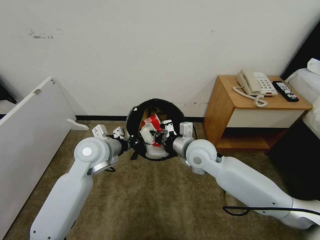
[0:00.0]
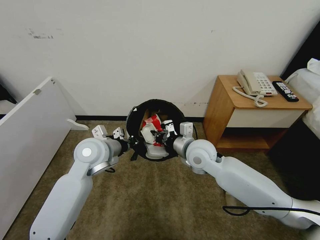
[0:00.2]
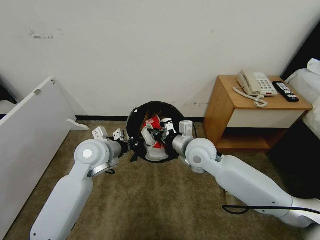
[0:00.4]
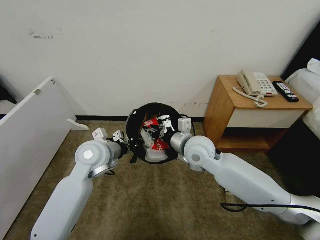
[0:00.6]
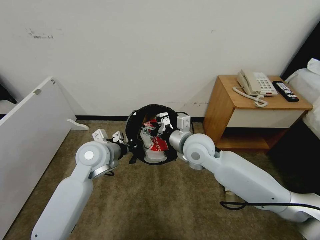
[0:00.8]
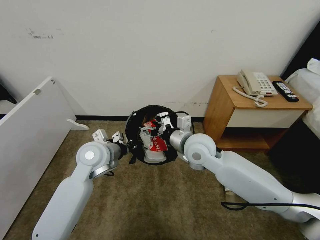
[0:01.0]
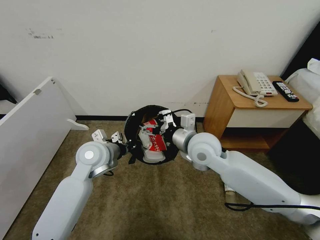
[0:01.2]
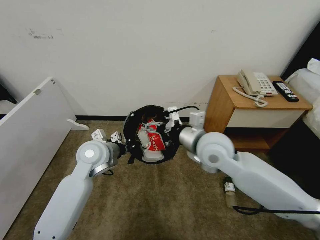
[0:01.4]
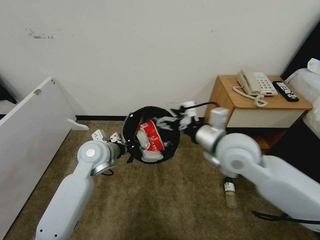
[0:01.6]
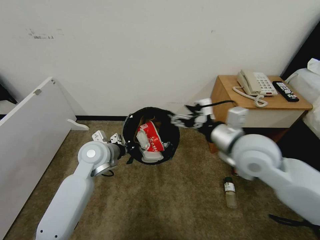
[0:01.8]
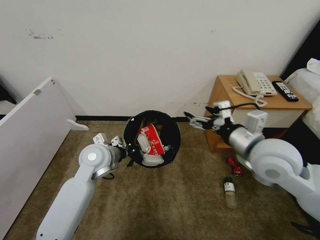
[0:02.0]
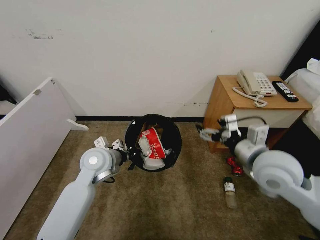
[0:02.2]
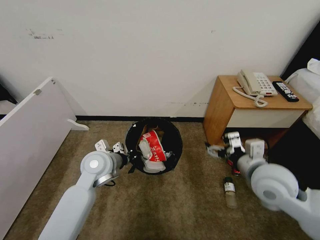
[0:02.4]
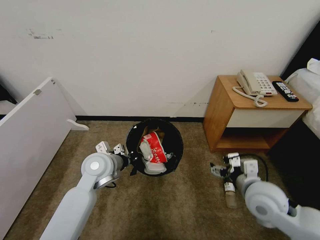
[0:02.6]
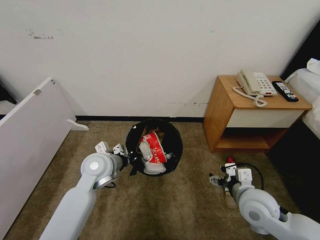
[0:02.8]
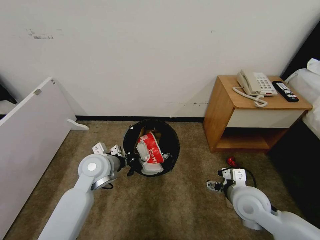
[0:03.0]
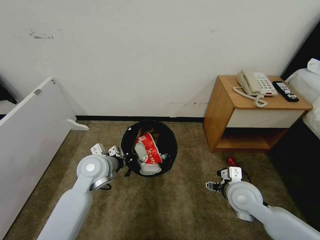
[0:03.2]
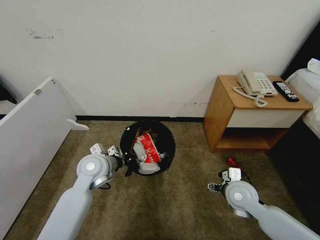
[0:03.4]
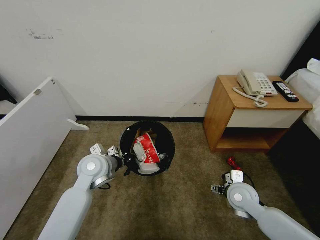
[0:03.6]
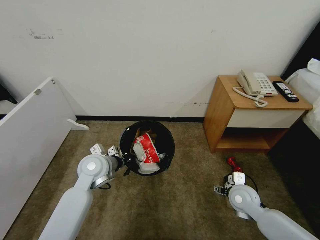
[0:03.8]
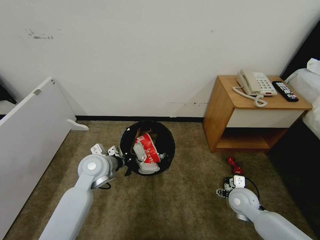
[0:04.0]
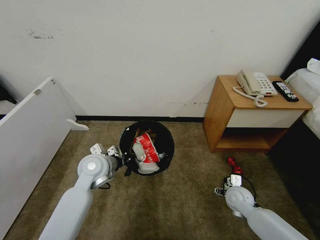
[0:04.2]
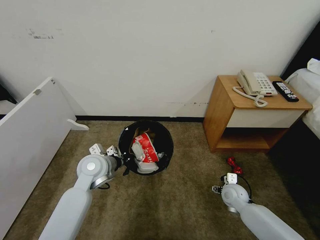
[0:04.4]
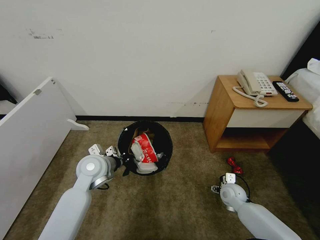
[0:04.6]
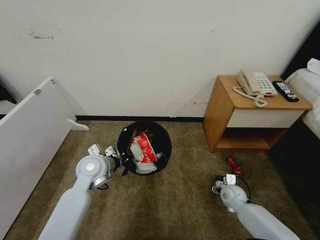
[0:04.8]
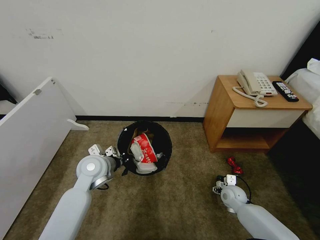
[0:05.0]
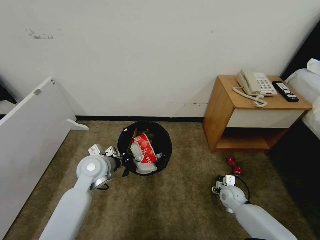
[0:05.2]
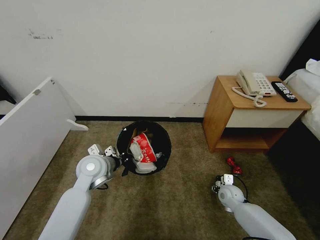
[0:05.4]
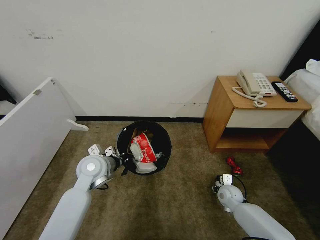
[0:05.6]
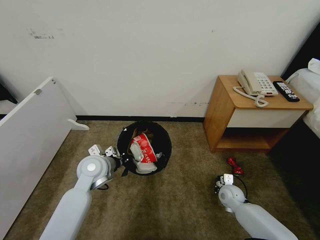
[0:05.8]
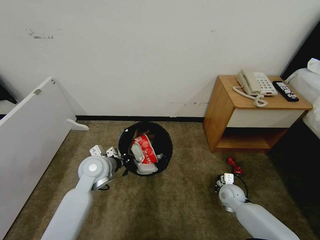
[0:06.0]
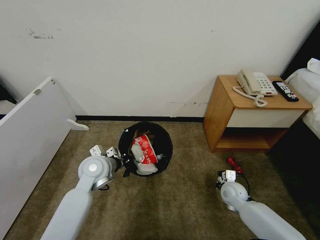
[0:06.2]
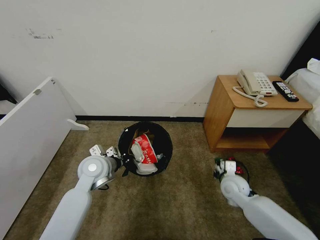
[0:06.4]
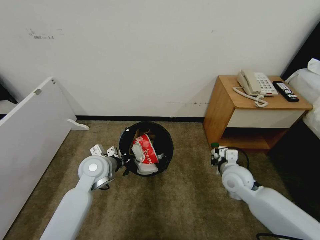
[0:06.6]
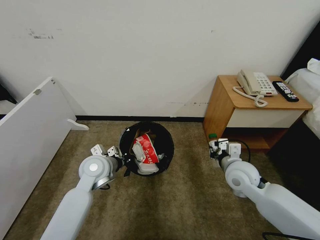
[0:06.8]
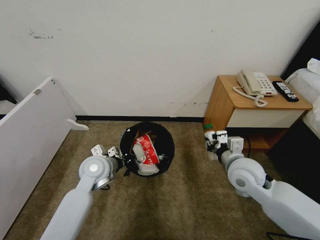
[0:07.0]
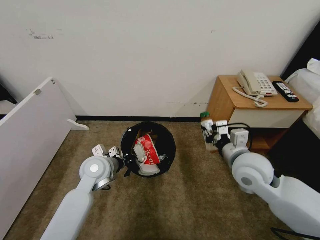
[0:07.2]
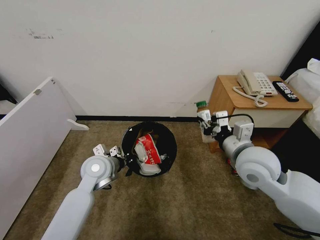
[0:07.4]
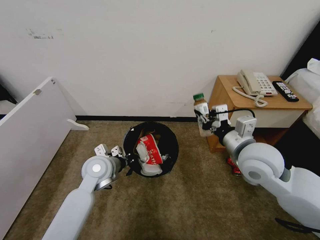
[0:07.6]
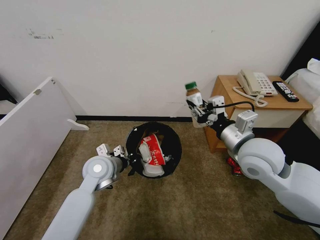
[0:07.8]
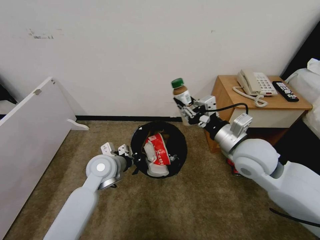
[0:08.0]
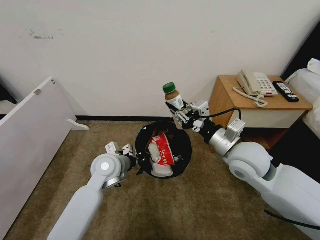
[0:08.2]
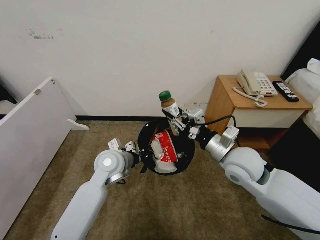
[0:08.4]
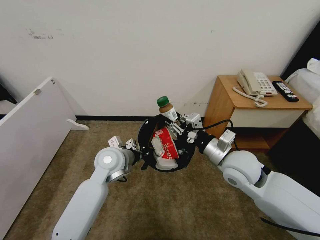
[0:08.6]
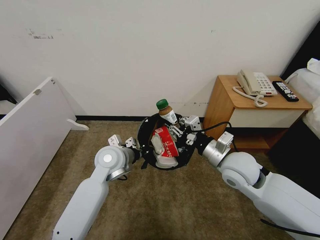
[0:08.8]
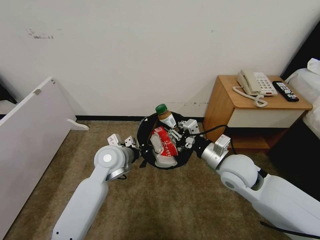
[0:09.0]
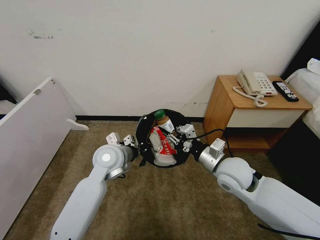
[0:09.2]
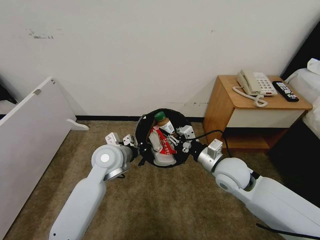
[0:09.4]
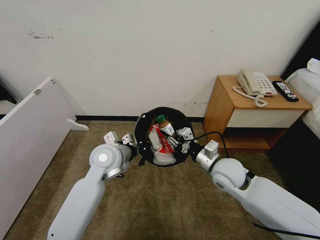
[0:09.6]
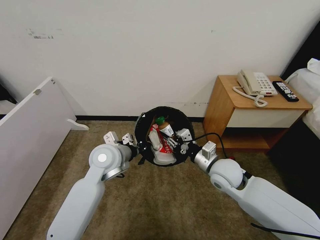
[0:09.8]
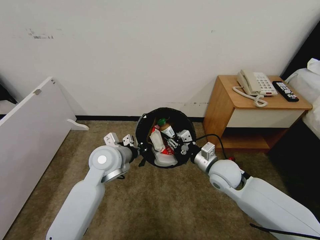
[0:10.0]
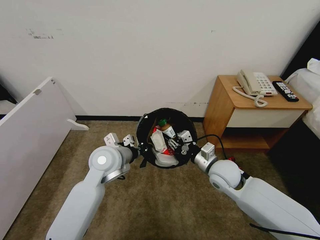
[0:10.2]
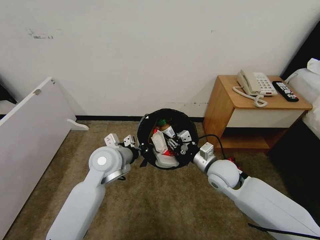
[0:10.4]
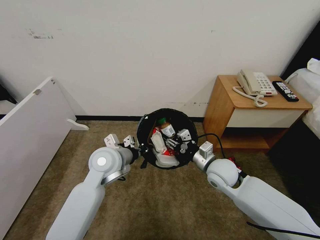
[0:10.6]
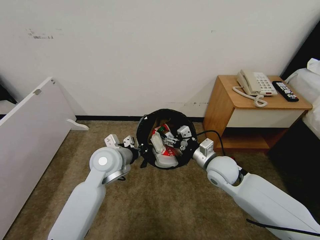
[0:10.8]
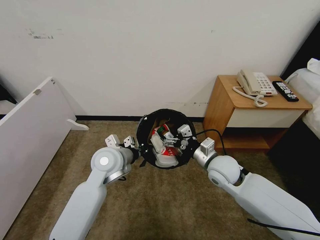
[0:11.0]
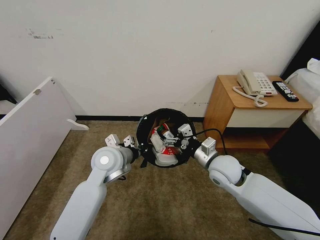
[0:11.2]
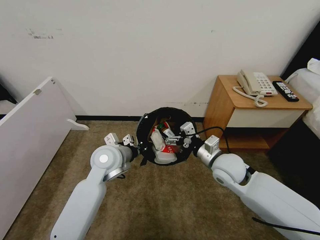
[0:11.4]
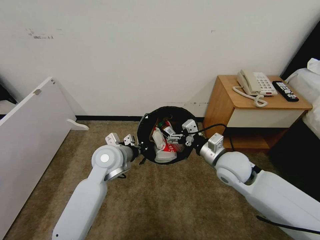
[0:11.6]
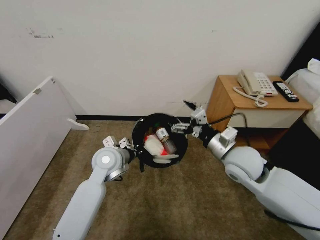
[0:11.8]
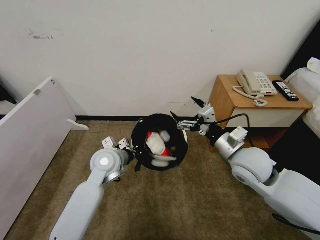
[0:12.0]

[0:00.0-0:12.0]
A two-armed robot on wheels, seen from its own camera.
Task of the whole recording: Pick up the trash bin, then pick up the garbage from the floor and place it into the trash bin.
0:00.0 to 0:01.6: The right gripper heads upward and backward, covering roughly 10 cm, and opens its fingers.
0:01.6 to 0:03.0: The right gripper travels downward, to the right and backward by roughly 20 cm.
0:03.0 to 0:04.4: The right gripper shifts approximately 20 cm downward and forward.
0:04.4 to 0:06.0: The right gripper closes up.
0:06.0 to 0:07.6: The right gripper travels upward by about 30 cm.
0:07.6 to 0:09.0: The left gripper changes place by roughly 5 cm. Meanwhile the right gripper moves downward, approximately 5 cm.
0:09.0 to 0:10.4: The right gripper travels downward by some 5 cm.
0:10.4 to 0:12.0: The right gripper goes roughly 10 cm upward, and opens.

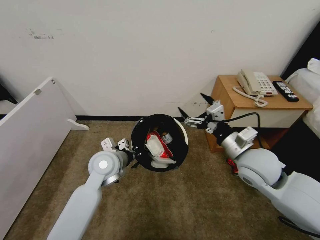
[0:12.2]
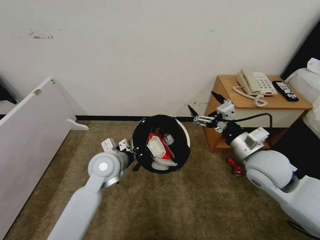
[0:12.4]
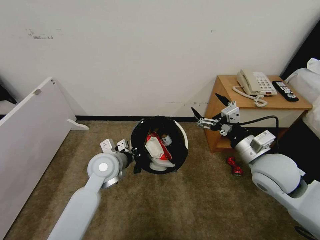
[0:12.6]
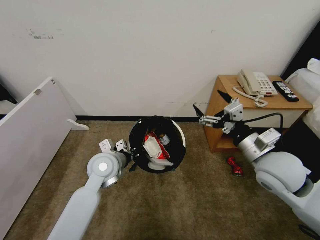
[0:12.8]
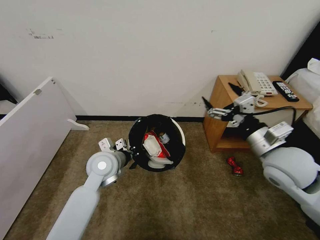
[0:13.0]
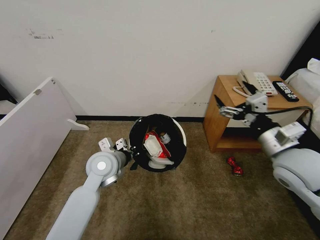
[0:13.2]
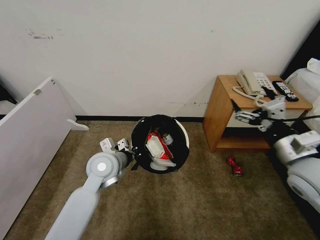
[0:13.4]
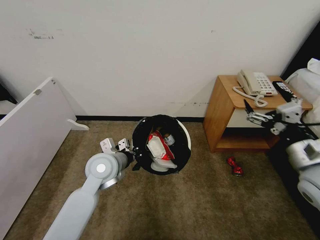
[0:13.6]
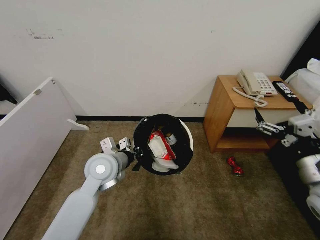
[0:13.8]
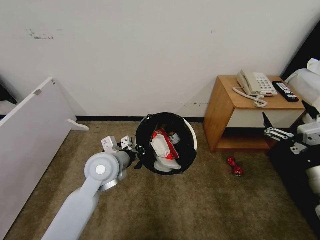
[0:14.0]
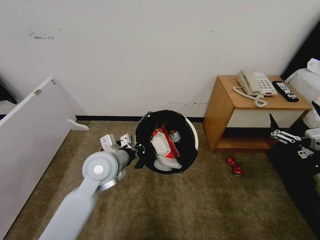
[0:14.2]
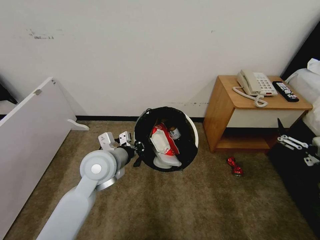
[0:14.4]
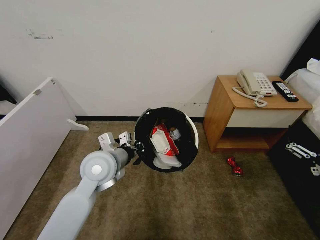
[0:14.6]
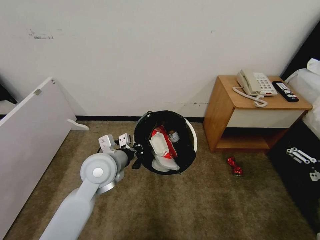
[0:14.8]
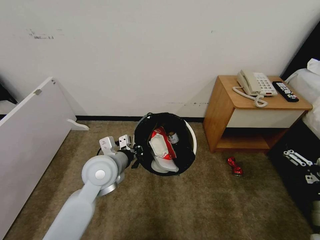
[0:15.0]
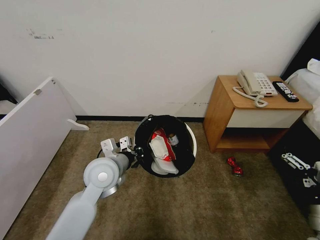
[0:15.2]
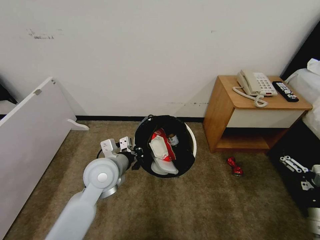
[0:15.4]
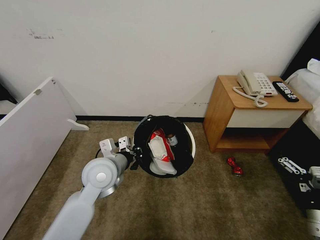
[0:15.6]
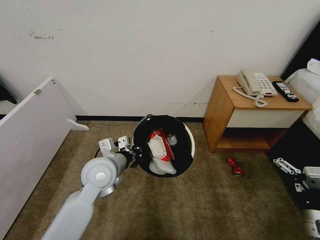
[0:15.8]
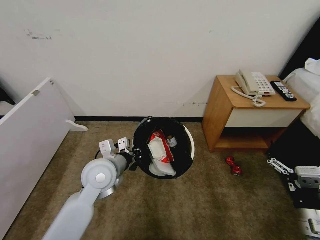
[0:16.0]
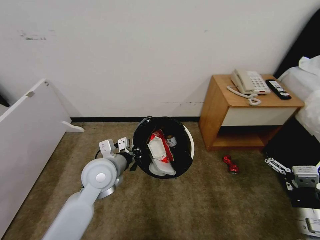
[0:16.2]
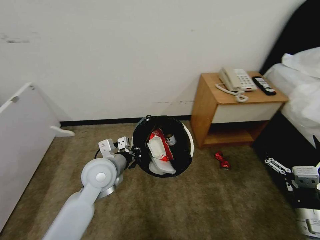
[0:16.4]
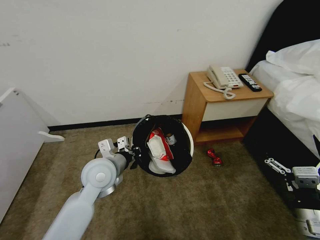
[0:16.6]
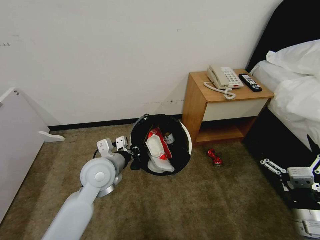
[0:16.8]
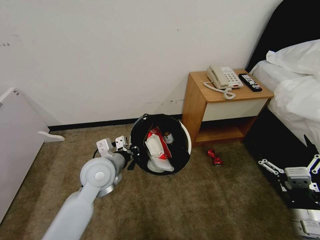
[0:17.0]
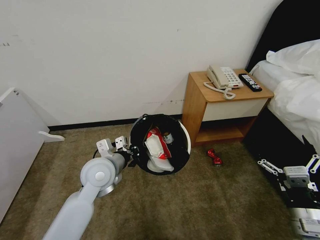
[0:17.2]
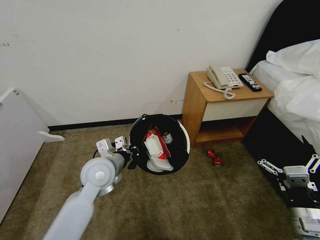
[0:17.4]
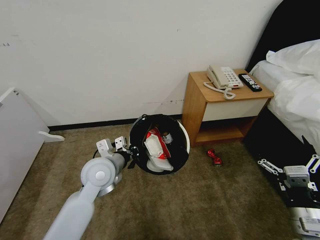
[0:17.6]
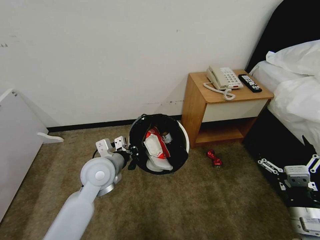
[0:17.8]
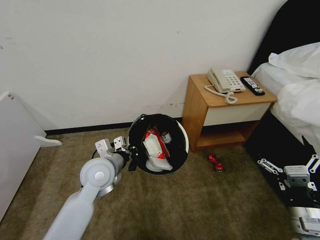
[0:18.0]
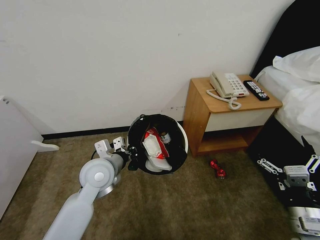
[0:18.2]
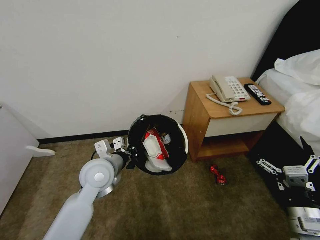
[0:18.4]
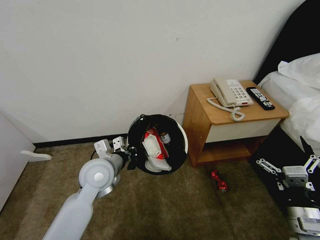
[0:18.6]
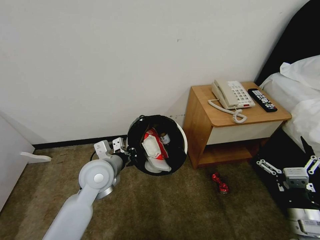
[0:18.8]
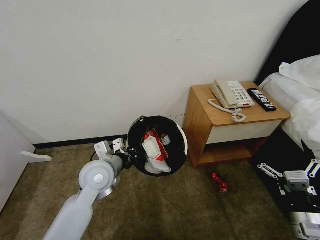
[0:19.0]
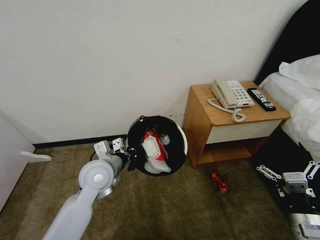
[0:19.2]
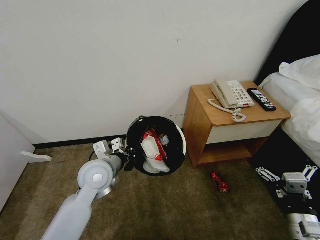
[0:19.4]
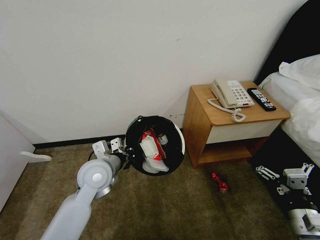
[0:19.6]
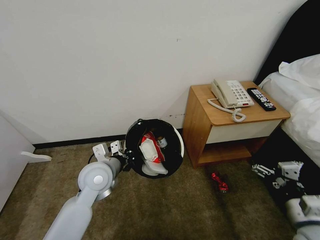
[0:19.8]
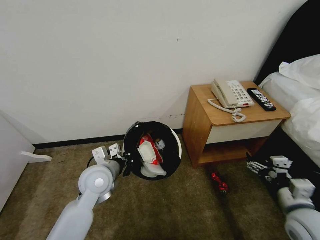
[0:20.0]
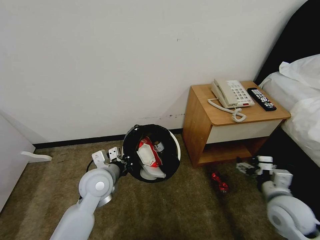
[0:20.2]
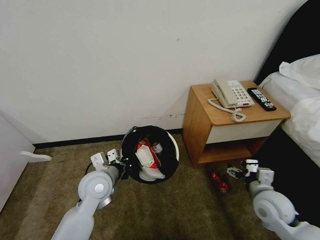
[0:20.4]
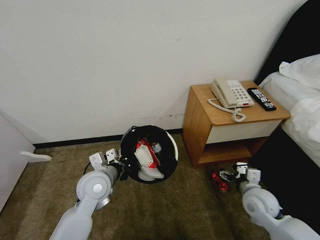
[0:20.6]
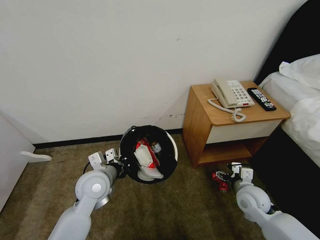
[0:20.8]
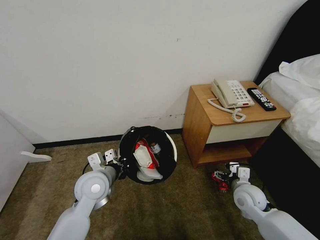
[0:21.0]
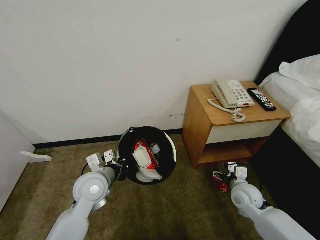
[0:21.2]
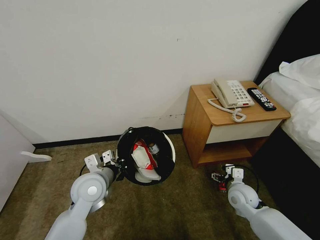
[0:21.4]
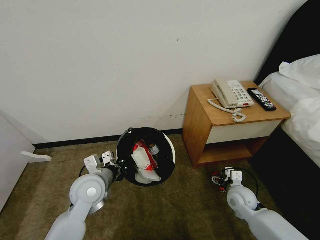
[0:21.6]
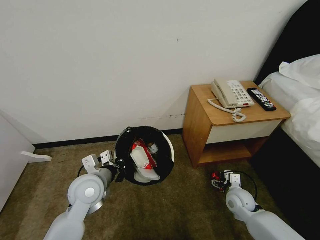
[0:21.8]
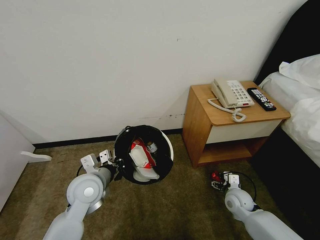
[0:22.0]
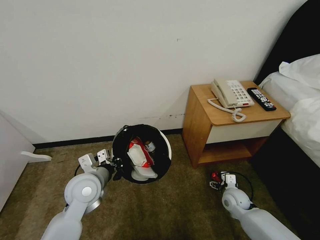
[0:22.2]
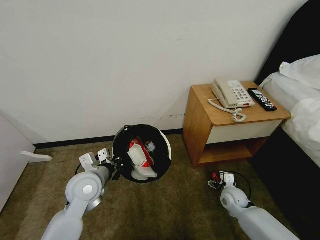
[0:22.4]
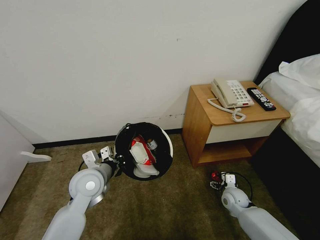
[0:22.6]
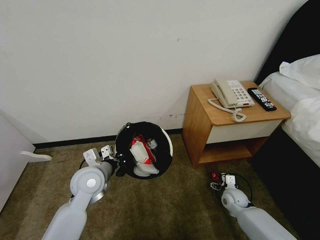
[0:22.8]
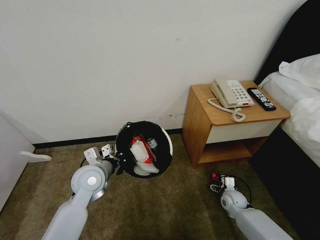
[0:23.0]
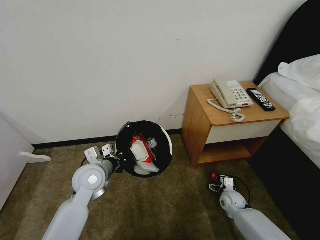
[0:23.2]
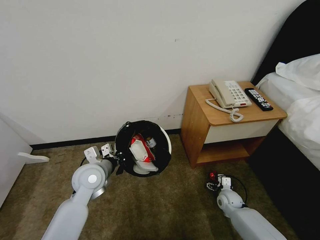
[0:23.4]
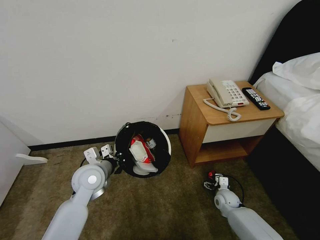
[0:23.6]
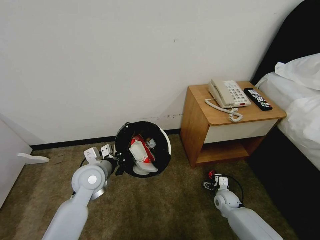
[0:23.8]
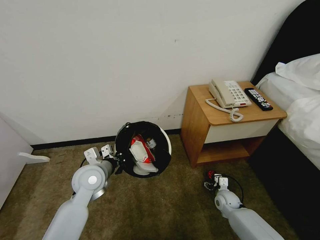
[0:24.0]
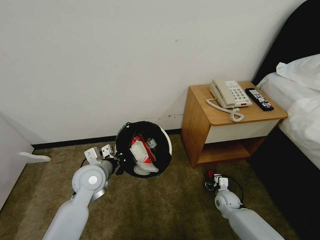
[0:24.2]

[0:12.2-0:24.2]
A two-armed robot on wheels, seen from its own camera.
Task of the whole recording: Pick up the trash bin, then pick up the garbage from the floor and place it into the trash bin.
0:12.2 to 0:13.8: The right gripper shifts some 15 cm to the right and backward.
0:13.8 to 0:15.2: The right gripper is displaced backward and downward by some 10 cm.
0:16.6 to 0:18.2: Neither gripper changes place.
0:19.8 to 0:21.2: The right gripper is displaced forward and downward by approximately 20 cm.
0:21.2 to 0:22.6: The right gripper travels downward by some 10 cm.
0:22.6 to 0:24.2: The grippers make only small movements.
